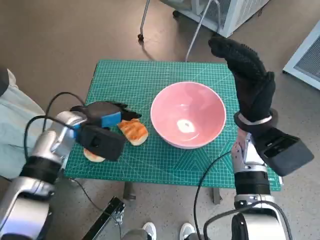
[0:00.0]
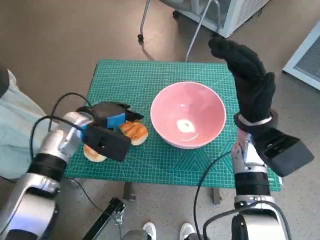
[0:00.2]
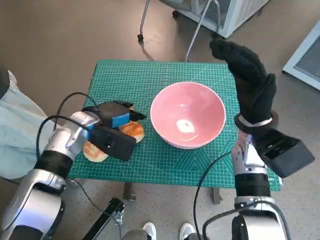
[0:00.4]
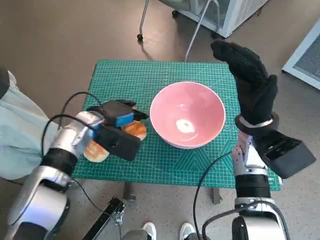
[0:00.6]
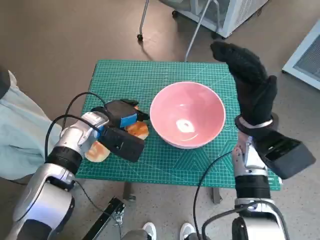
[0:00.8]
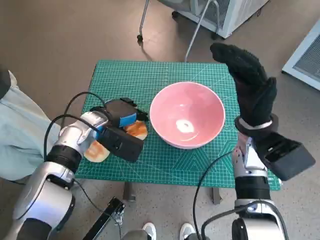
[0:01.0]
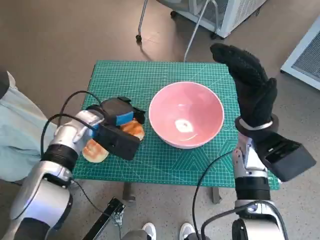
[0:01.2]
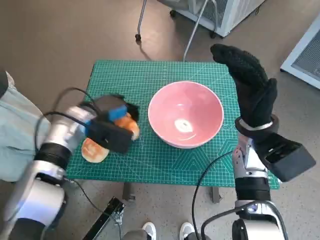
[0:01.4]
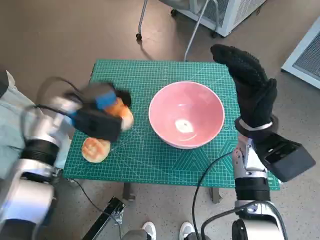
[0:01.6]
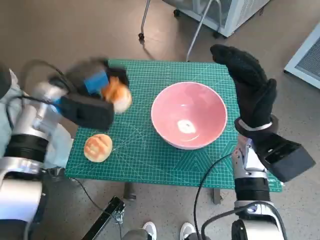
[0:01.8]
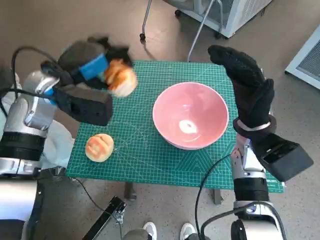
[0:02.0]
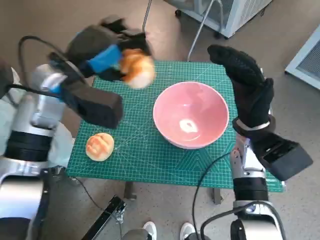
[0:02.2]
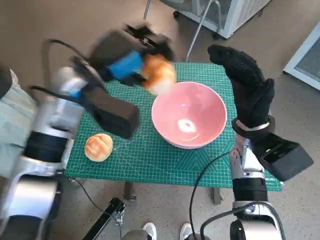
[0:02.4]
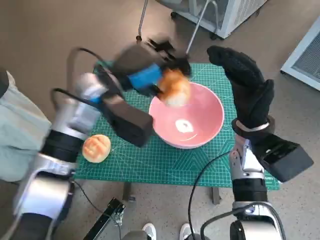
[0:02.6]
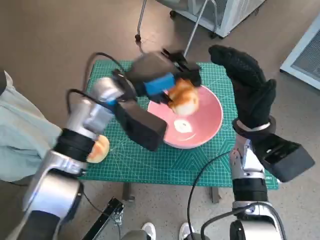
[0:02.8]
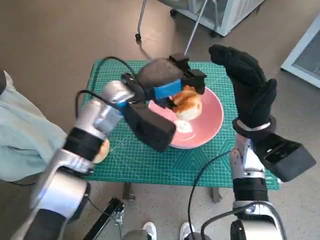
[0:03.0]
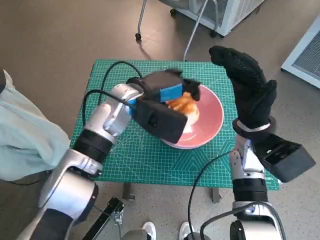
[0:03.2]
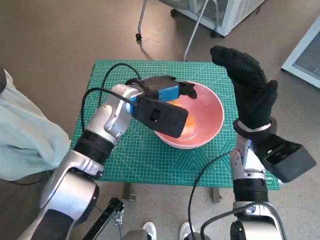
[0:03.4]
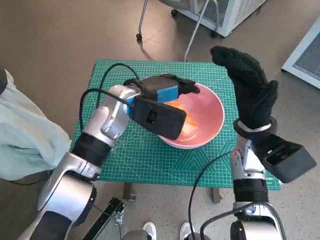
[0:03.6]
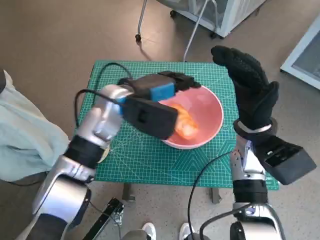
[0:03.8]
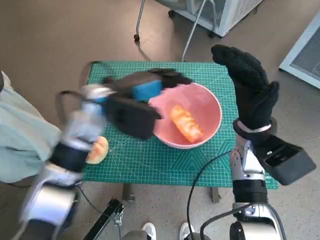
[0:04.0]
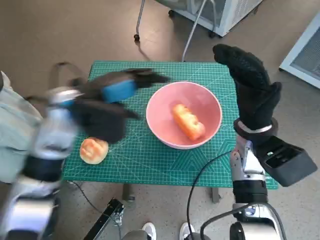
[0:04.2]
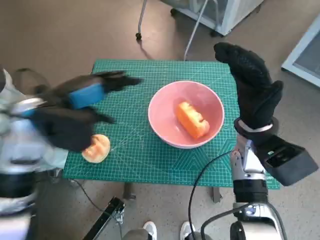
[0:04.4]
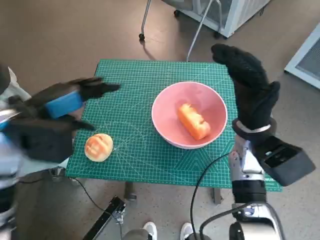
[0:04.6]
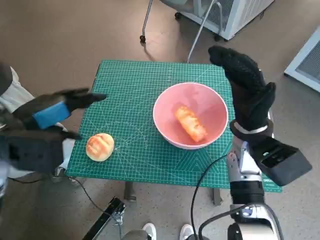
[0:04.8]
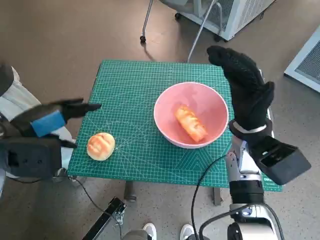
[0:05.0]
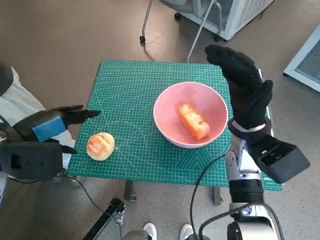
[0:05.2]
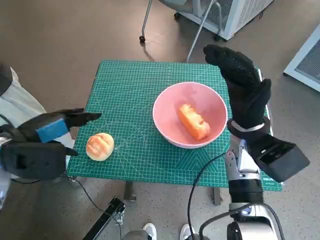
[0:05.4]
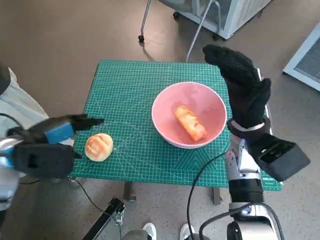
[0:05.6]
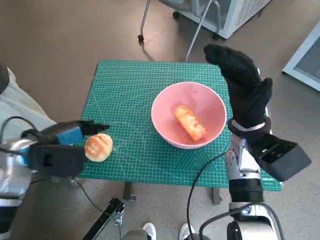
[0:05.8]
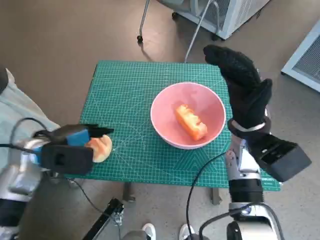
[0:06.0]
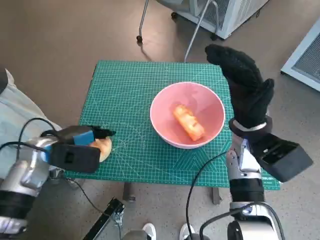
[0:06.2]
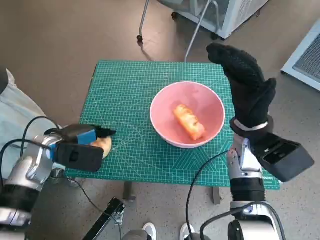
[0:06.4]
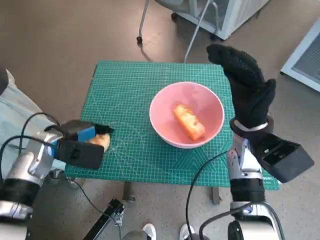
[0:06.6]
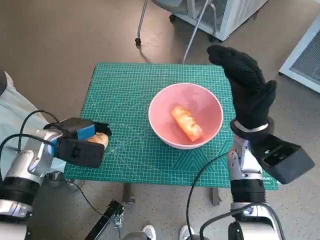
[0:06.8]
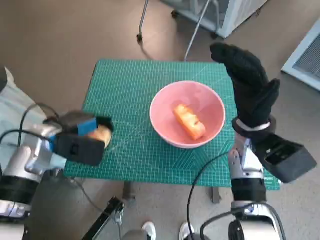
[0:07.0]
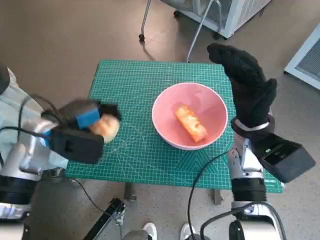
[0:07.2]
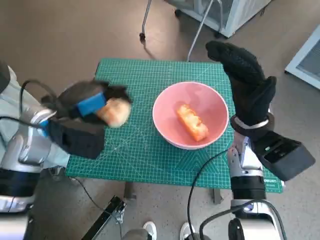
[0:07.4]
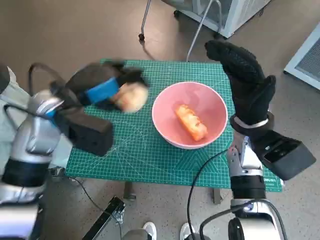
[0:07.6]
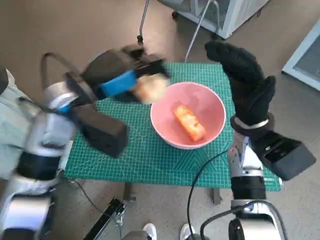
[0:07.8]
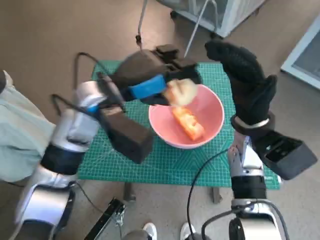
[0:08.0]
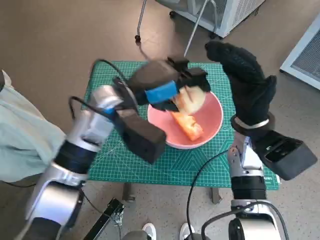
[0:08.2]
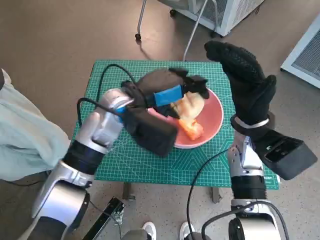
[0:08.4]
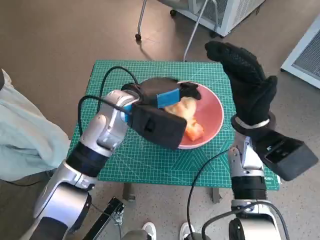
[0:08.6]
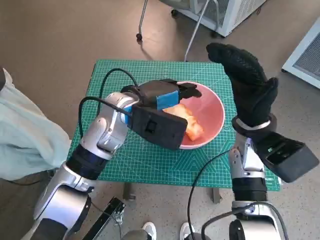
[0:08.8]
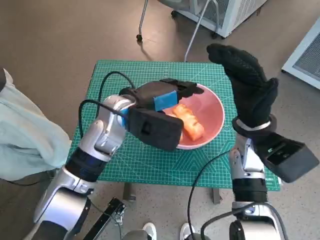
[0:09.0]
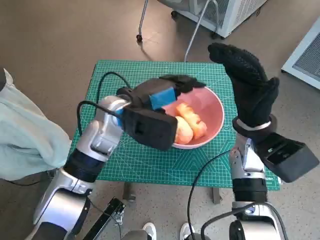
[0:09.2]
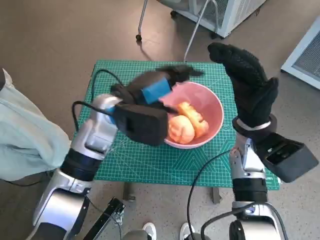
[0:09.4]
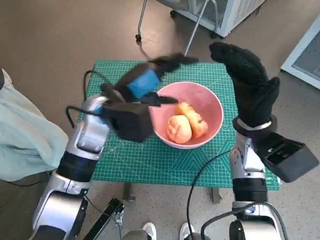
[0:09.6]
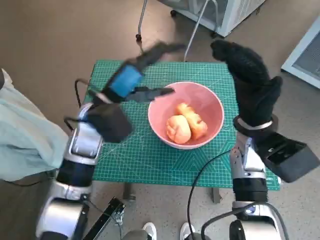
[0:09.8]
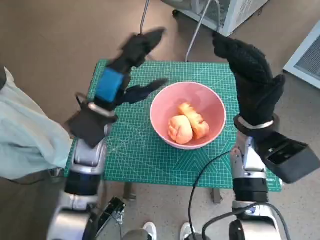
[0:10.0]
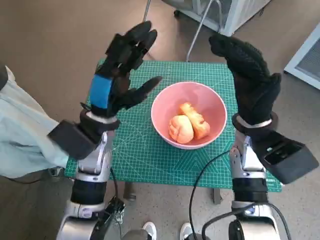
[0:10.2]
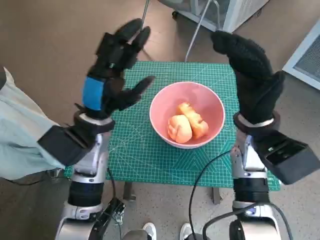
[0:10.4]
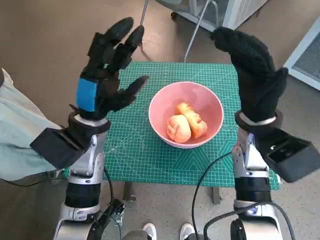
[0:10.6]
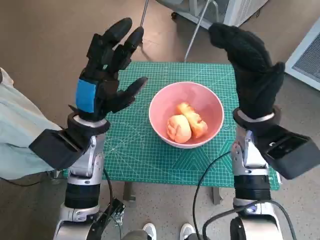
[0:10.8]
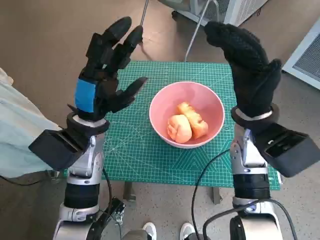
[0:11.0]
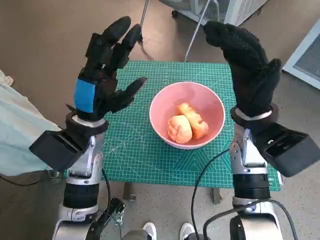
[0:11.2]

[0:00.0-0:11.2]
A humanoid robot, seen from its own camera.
Task of the whole recording: Push the bowl to the center of the table and put the bread into the bowl.
Step, 0:01.2 to 0:03.8: Place the long bread in pink bowl with left hand.
Step, 0:04.0 to 0:06.6: Grasp the round bread with left hand.
Step, 0:07.0 to 0:09.0: Place the round bread in pink bowl with left hand.
0:01.6 to 0:03.2: The left hand shifts approximately 15 cm to the right.
0:03.2 to 0:04.8: The left hand heads to the left and backward, covering roughly 20 cm.
0:04.8 to 0:06.4: The left hand goes roughly 10 cm downward.
0:06.4 to 0:08.0: The left hand heads to the right and upward, covering about 20 cm.
0:09.6 to 0:11.2: The left hand ends up roughly 5 cm from where it was.
